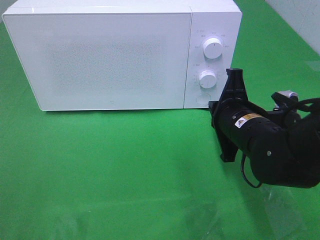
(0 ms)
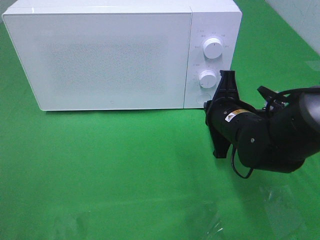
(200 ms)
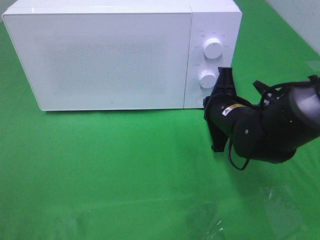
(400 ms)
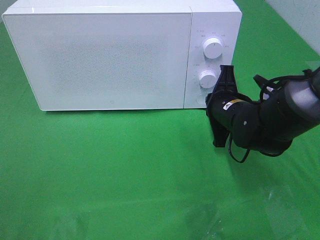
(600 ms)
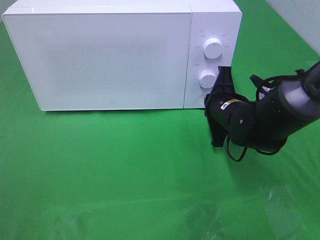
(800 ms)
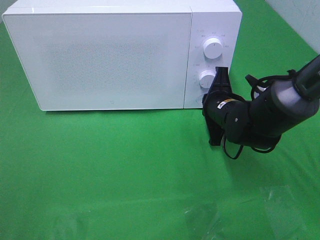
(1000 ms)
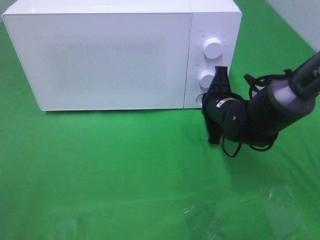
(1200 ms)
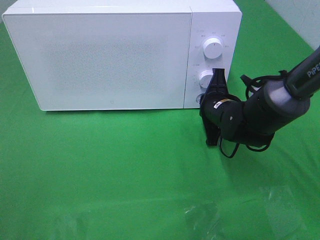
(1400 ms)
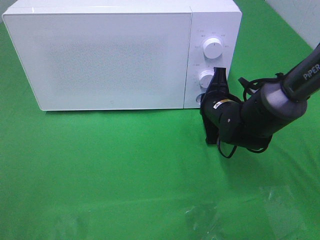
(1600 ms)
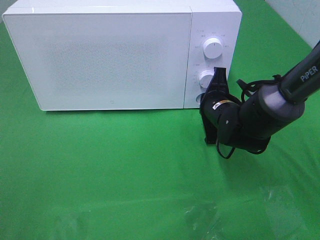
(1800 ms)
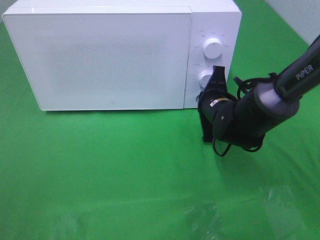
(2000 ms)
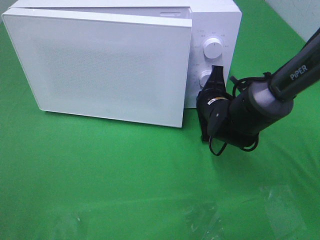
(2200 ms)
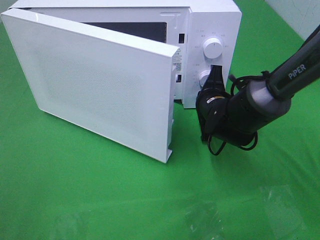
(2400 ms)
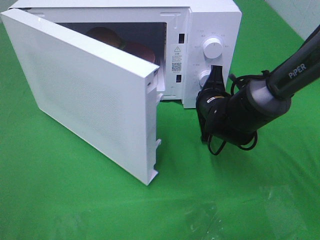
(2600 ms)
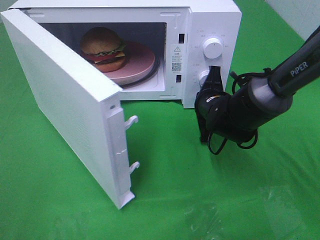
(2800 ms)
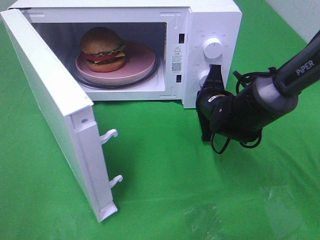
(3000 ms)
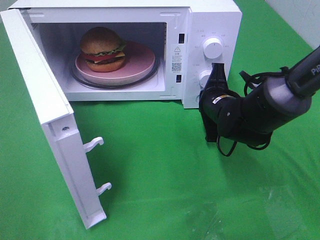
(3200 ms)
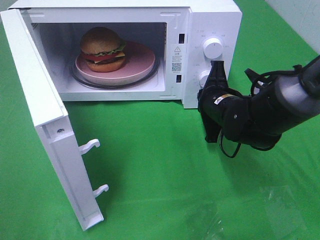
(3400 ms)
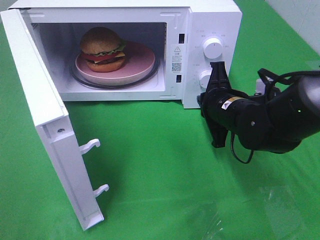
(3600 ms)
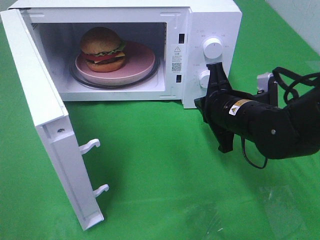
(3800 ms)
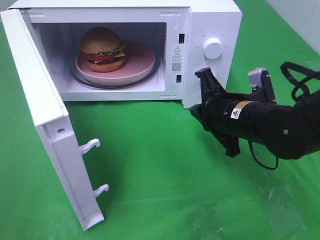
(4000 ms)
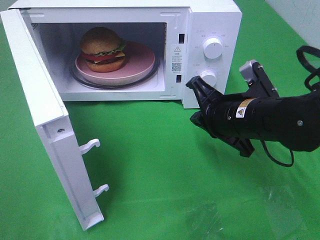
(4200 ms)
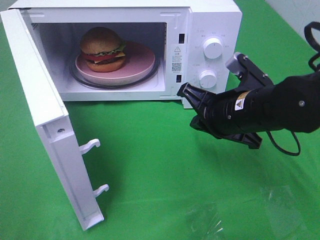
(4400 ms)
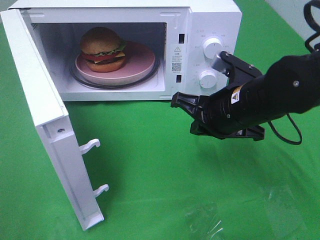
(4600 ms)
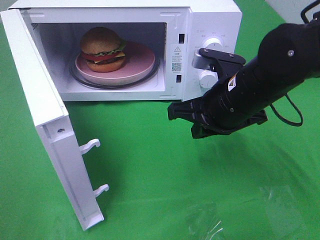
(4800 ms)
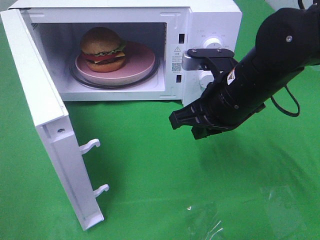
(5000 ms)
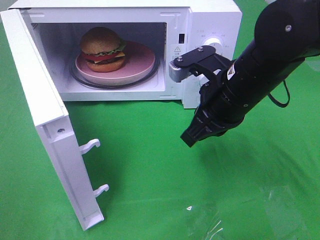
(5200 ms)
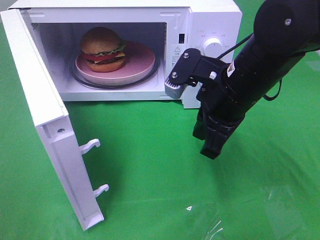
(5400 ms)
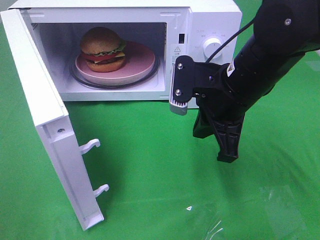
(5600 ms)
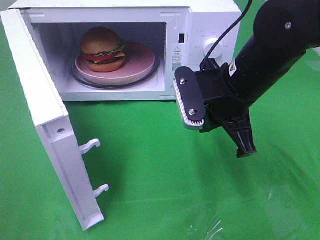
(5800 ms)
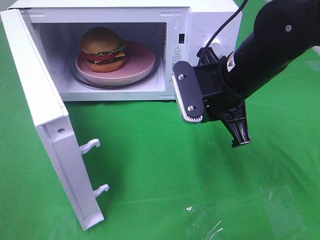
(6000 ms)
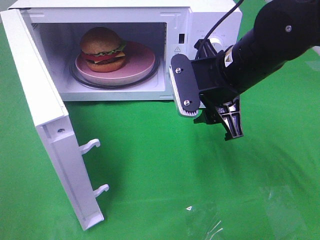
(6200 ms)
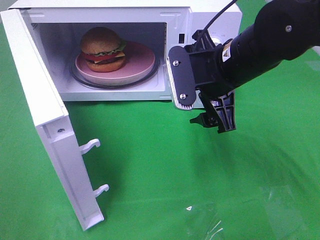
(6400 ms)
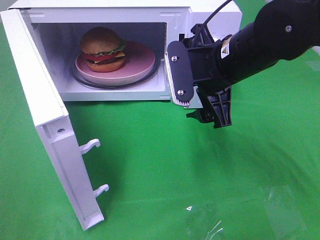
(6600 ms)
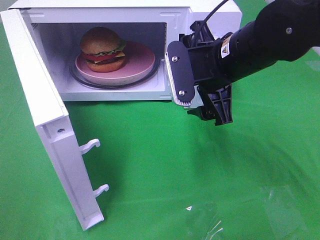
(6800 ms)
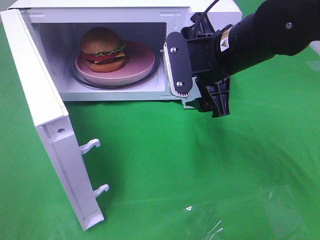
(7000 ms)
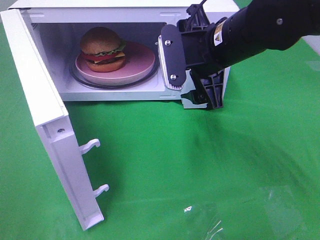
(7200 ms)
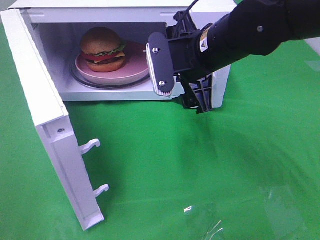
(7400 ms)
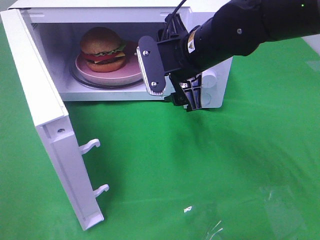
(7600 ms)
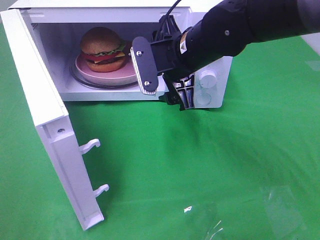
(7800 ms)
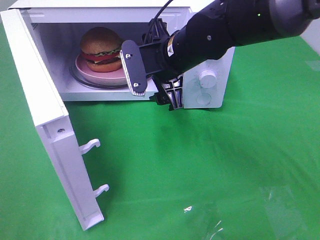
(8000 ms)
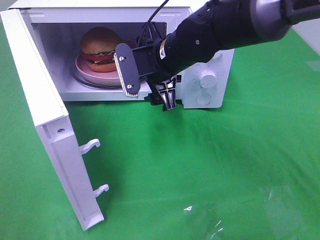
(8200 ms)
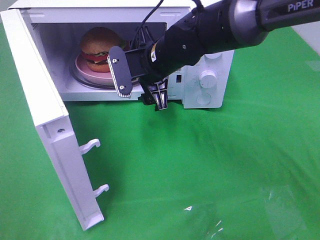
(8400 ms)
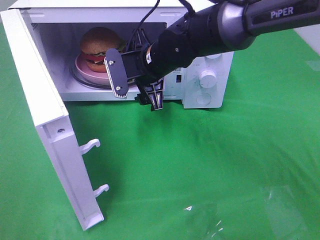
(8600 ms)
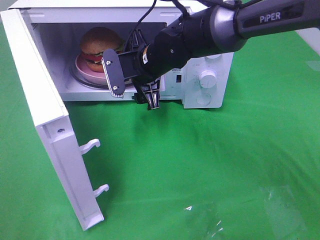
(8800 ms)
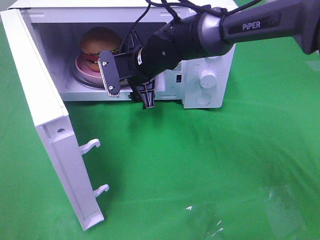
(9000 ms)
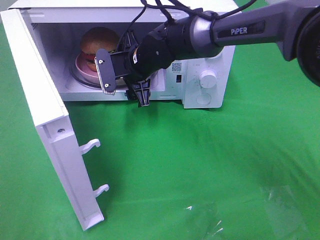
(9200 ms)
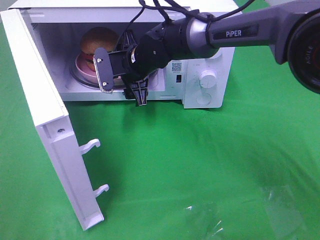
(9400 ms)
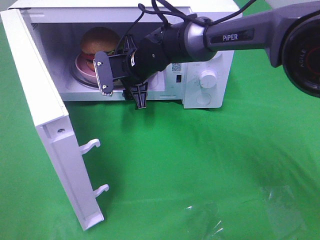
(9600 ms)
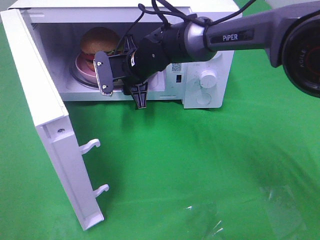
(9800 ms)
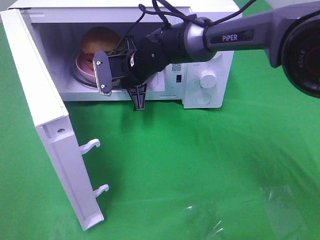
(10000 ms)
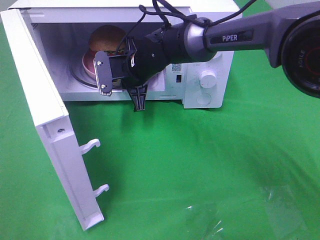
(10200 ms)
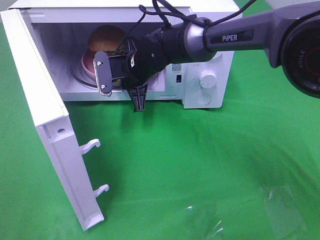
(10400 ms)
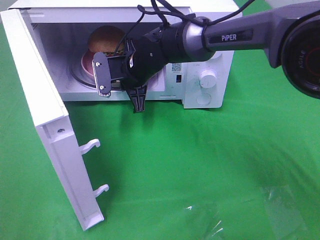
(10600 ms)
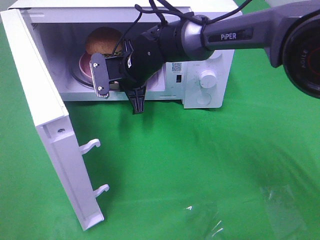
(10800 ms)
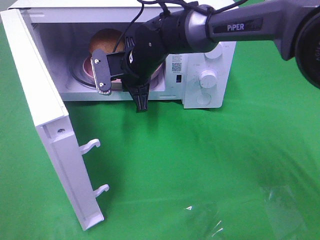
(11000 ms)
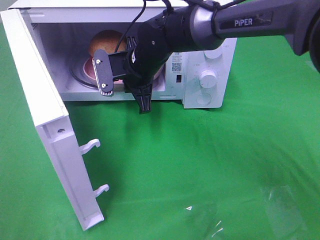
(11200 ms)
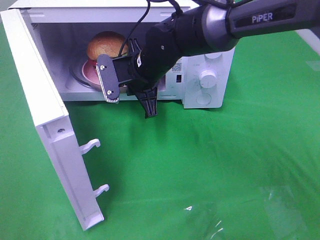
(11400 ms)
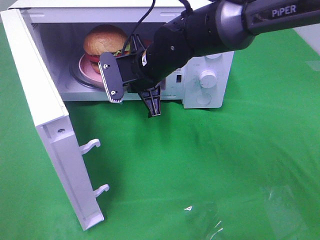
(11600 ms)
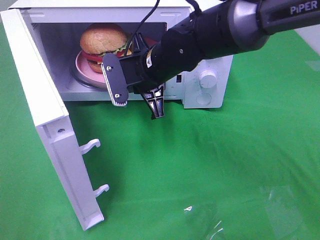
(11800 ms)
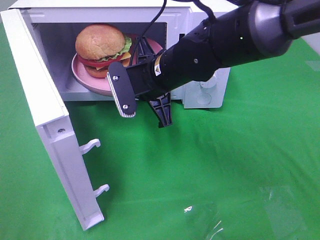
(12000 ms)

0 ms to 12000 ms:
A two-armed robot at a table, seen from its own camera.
Task of the whole recording: Heat the burger.
Step, 0 ms to 3600 ms: Right hand: press the switch.
Step, 3800 ms to 10800 ms: Right hand: grab the plate with the hamburger.
0 ms to 1600 ms: The right gripper travels forward by some 10 cm.
3000 ms to 4400 ms: The right gripper shifts approximately 10 cm backward and upward.
4400 ms to 6000 ms: The right gripper moves upward, roughly 5 cm.
6000 ms to 7600 ms: The right gripper goes some 5 cm to the left, and opens up.
7600 ms to 9000 ms: The right gripper moves forward, to the left and downward, roughly 15 cm.
9000 ms to 10400 ms: The right gripper closes up.
10400 ms to 12000 ms: The right gripper heads backward, covering roughly 10 cm.

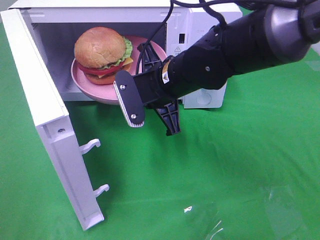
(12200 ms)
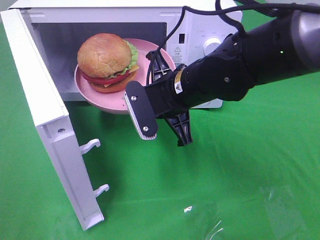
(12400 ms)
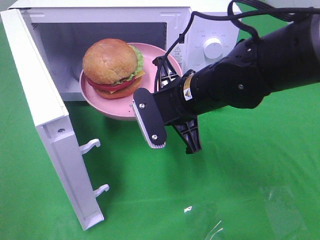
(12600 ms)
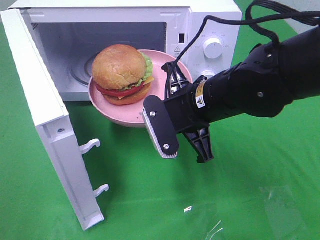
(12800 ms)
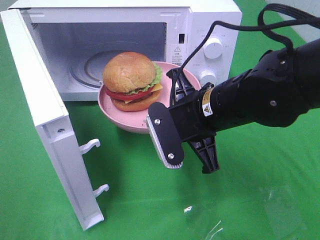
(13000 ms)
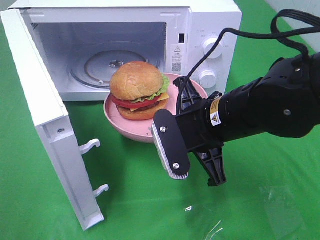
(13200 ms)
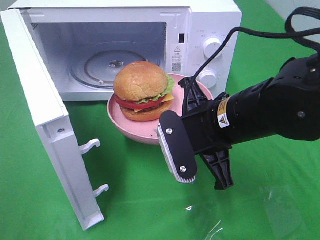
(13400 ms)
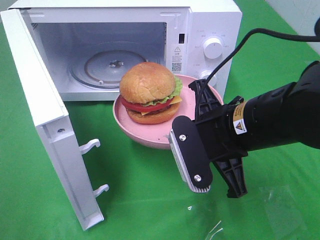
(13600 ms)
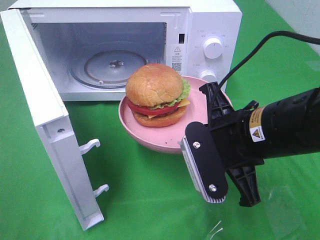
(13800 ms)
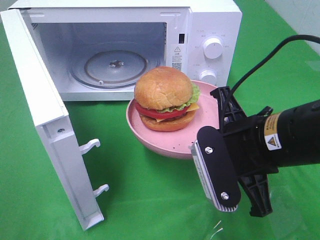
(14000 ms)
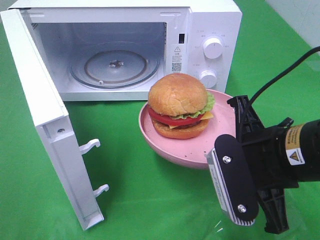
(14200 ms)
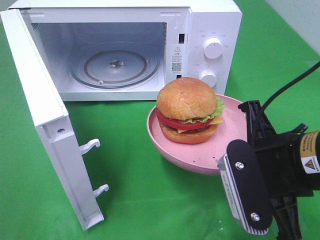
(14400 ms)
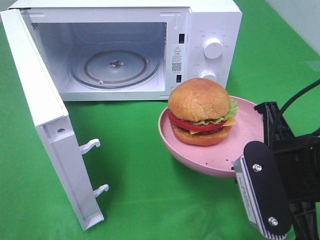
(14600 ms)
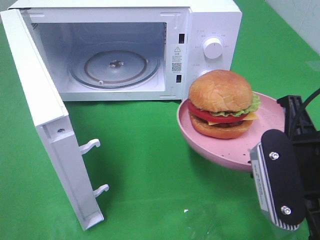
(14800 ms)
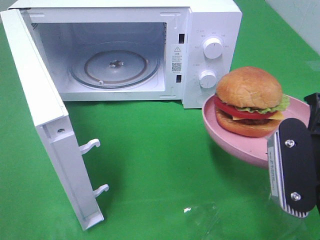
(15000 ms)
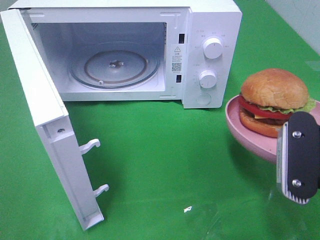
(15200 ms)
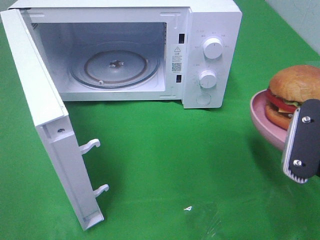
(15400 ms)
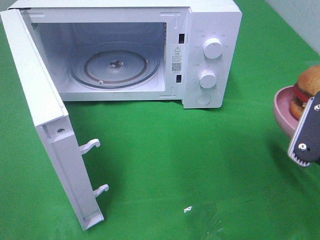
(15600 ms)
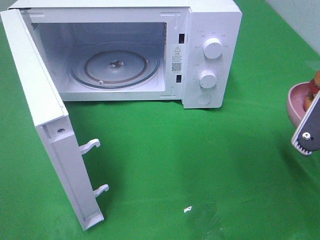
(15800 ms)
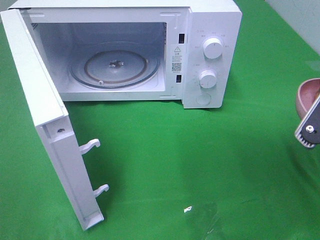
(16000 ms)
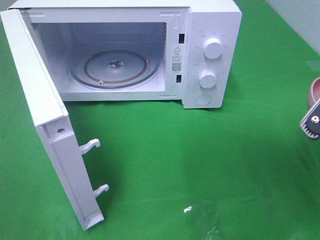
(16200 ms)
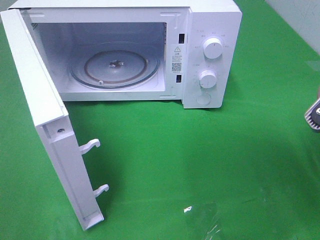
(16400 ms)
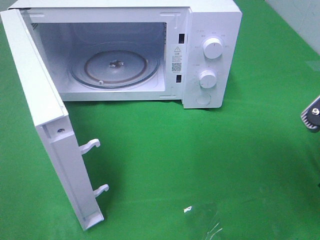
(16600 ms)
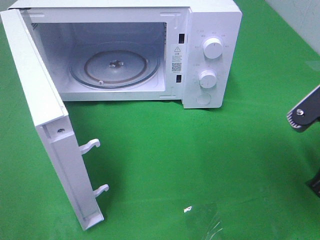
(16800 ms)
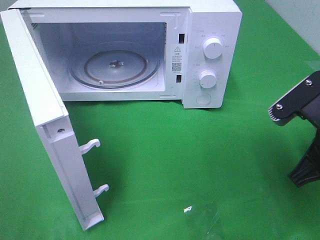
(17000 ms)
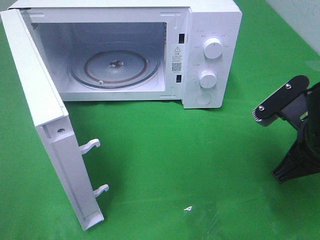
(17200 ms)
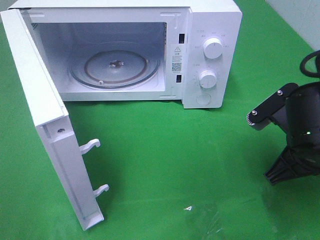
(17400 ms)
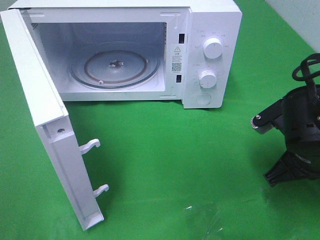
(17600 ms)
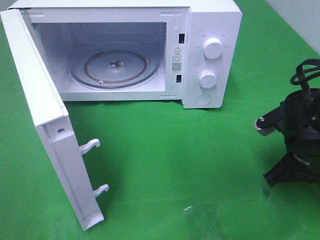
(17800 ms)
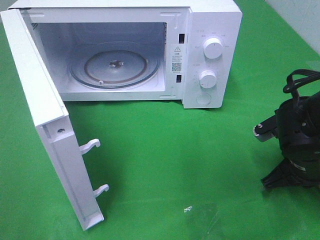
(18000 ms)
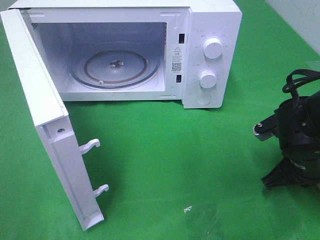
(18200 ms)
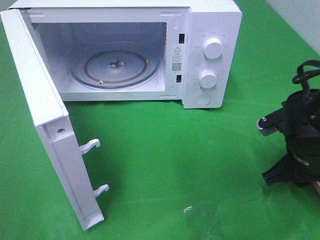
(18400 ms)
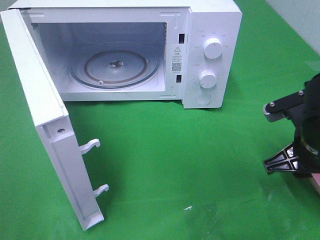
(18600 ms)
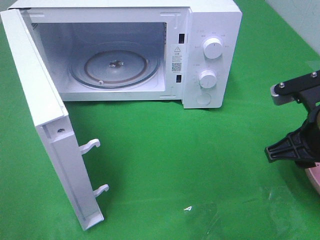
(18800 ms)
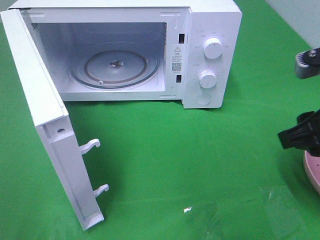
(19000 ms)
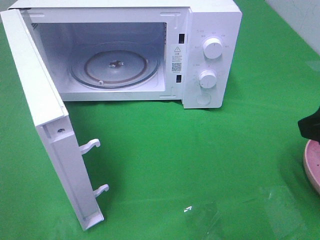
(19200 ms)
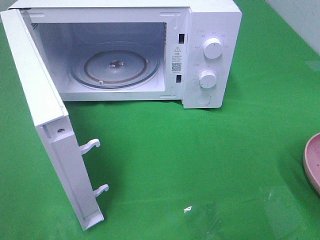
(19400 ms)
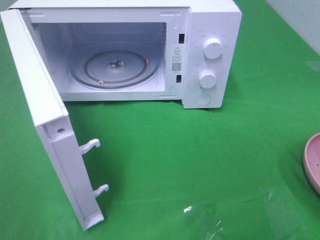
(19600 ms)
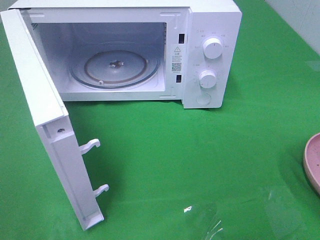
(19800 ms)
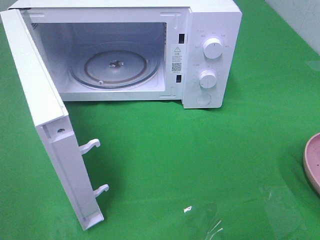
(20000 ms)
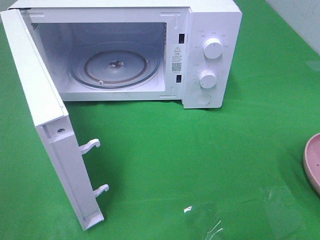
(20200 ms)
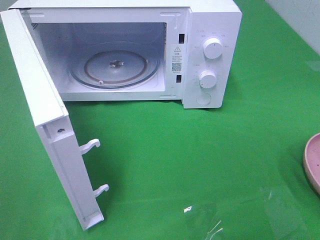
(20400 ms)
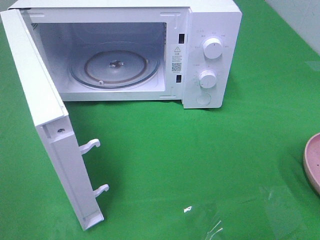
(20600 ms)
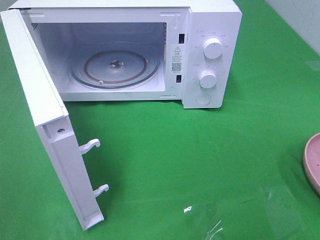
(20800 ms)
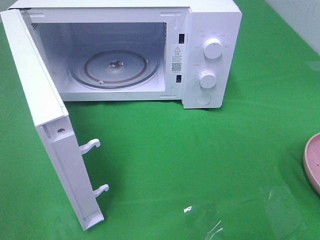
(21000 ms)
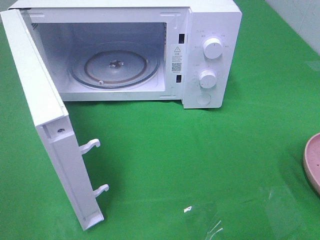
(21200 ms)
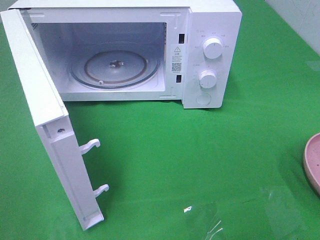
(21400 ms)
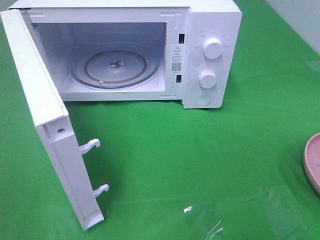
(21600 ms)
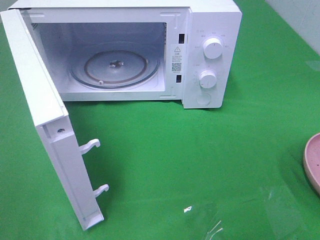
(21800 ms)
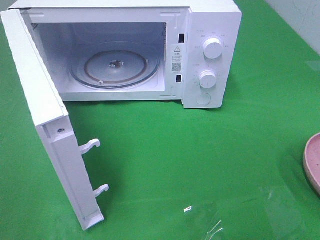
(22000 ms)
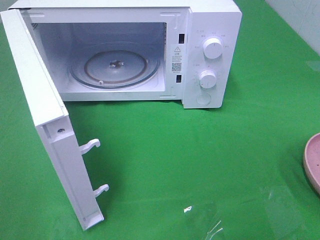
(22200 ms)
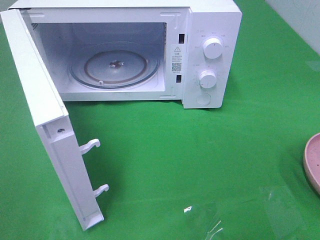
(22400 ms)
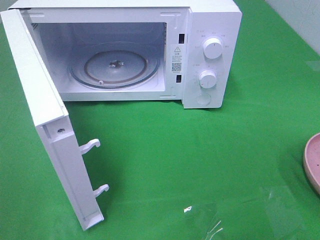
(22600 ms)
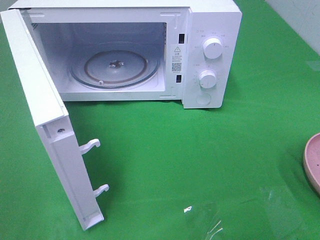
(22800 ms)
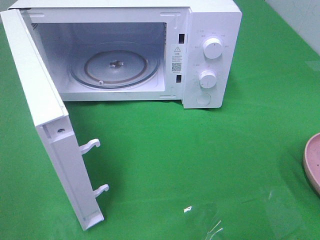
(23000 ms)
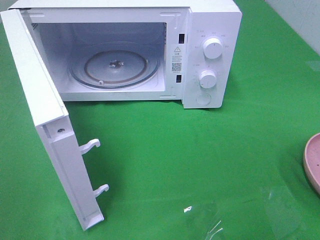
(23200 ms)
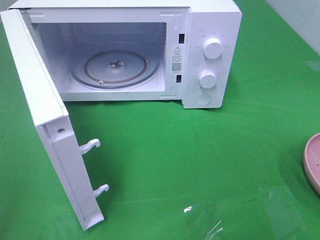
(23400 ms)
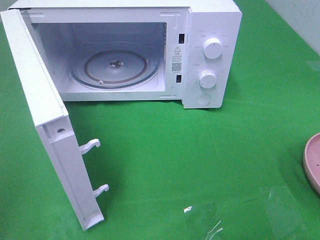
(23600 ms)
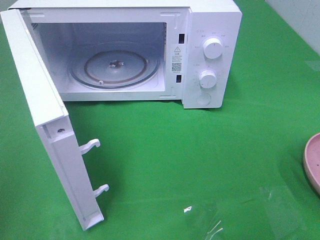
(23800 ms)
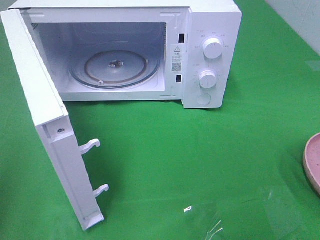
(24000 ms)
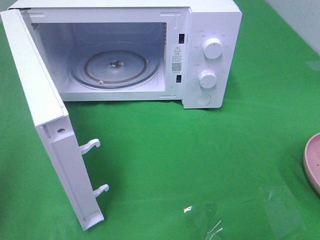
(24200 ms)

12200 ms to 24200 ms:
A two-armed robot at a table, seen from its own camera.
Task of the whole recording: Heat the burger.
Step, 12200 ms to 18400 ms: Right hand: place the plate on the table.
12200 ms to 13800 ms: The right gripper shifts approximately 15 cm backward and to the right.
13800 ms to 15200 ms: The right gripper shifts about 10 cm to the right and backward.
16600 ms to 18200 ms: The right gripper heads downward and forward, covering roughly 15 cm.
18200 ms to 19800 ms: The right gripper goes about 25 cm upward and backward, and opens.
21200 ms to 22600 ms: The two grippers keep their place.
